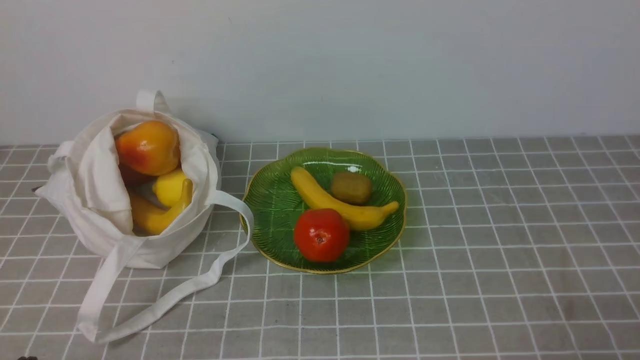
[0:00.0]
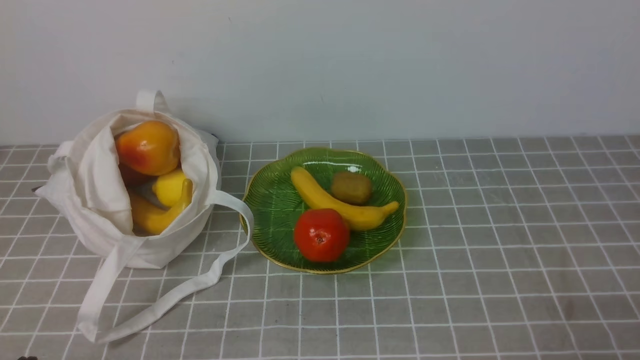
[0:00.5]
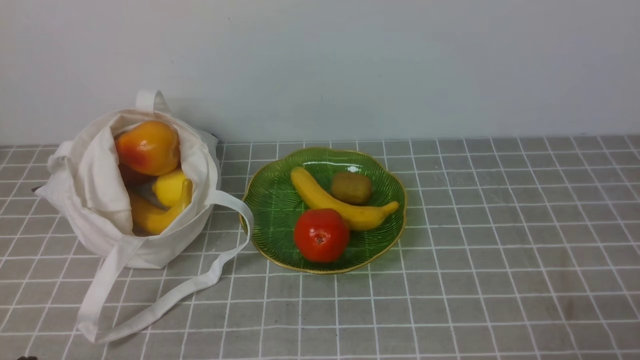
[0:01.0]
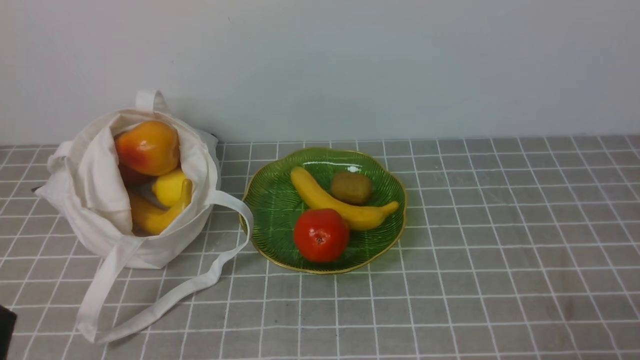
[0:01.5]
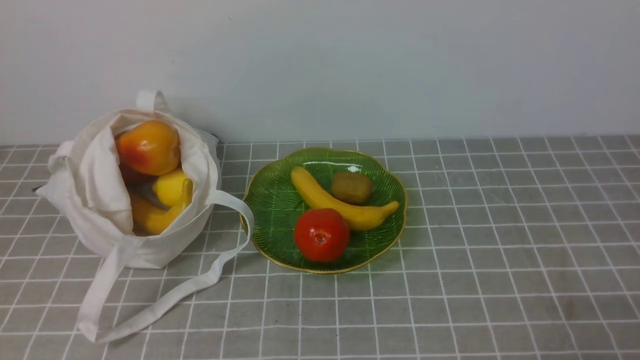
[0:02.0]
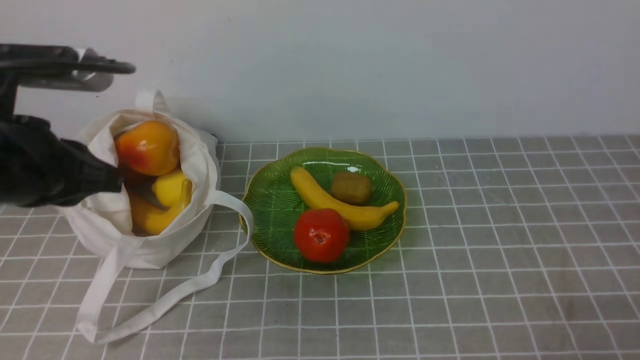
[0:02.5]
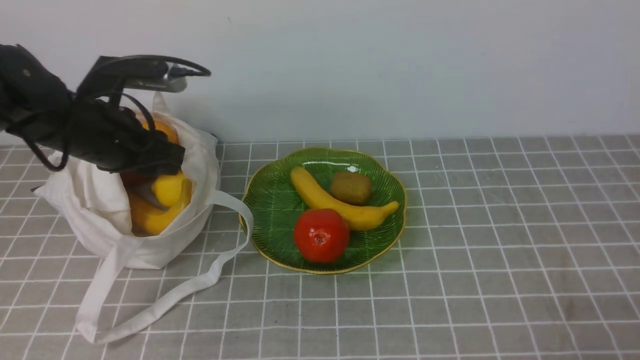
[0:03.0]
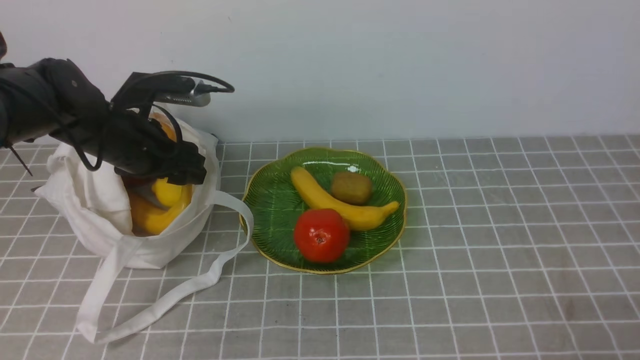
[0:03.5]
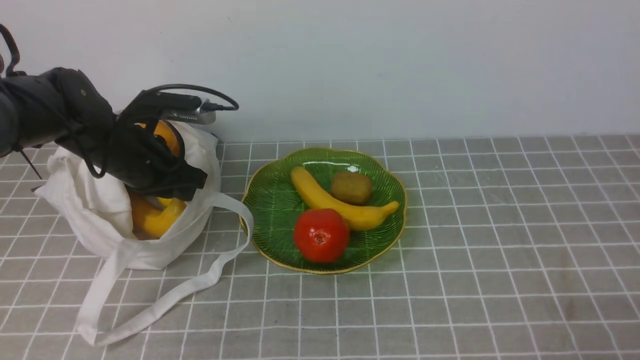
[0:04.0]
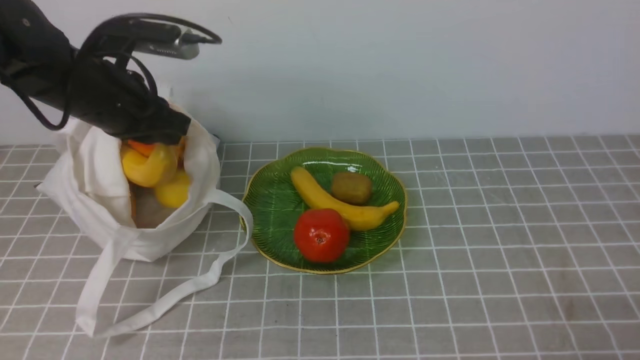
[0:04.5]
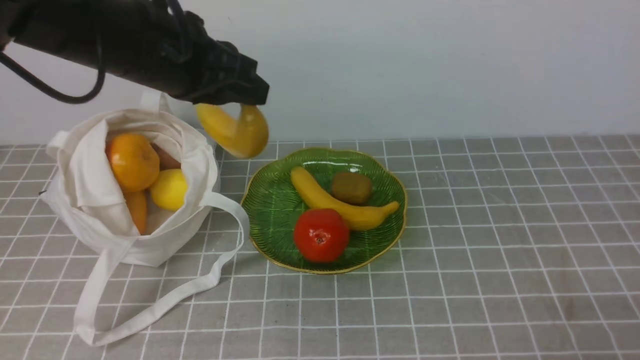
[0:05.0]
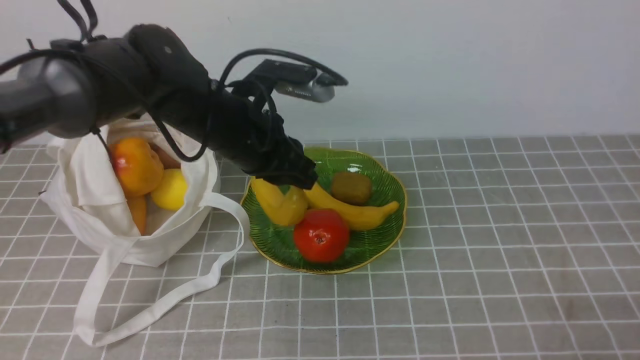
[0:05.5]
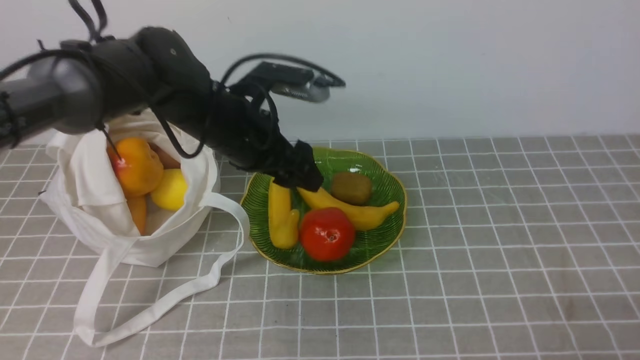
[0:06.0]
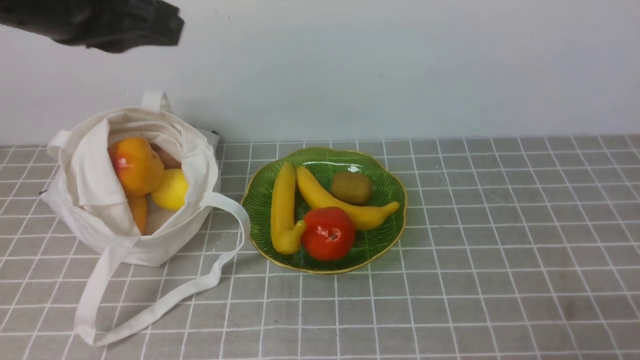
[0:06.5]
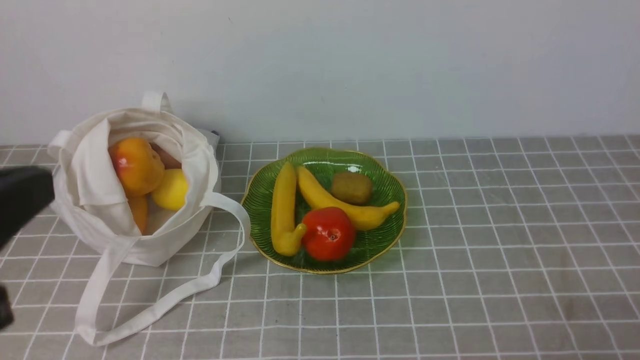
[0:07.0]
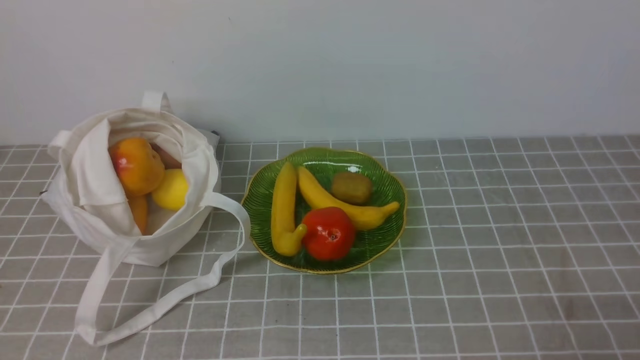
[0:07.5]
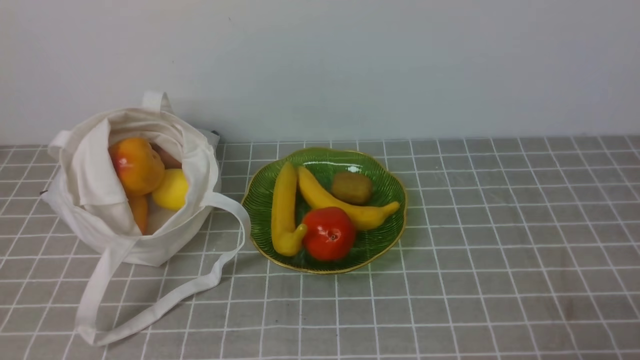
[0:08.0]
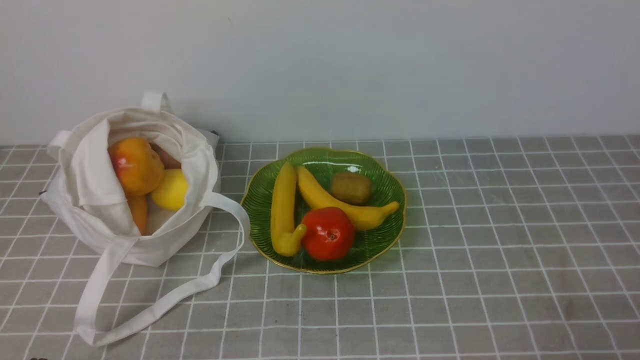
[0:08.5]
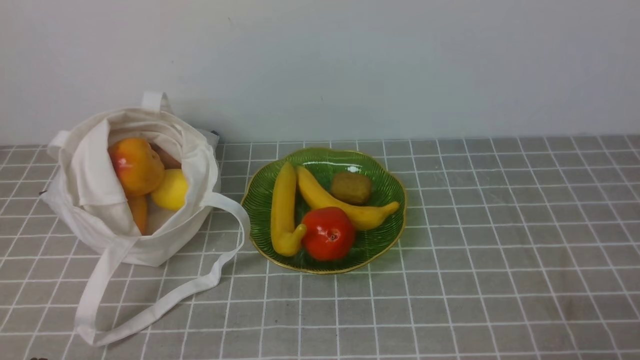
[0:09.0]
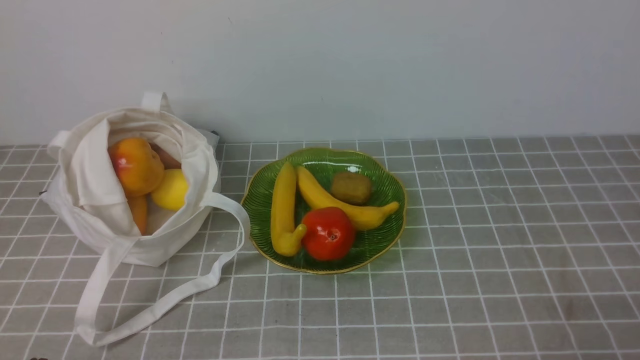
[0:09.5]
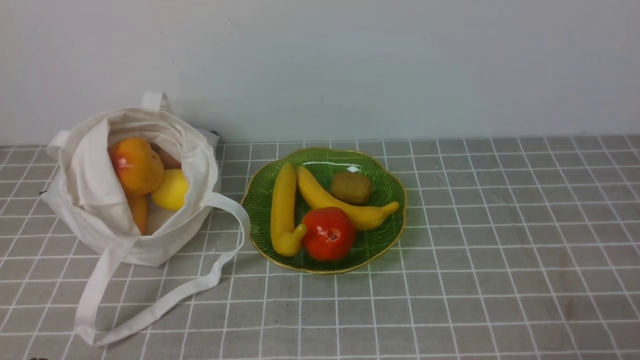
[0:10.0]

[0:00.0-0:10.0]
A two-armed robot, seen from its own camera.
Step, 0:00.0 to 0:04.0: use the left arm to grab a banana from the bag.
Step, 0:04.5 to 0:05.5: use the left arm to put the banana into the empty plate on the right.
0:02.0 to 0:04.0: The left gripper heads forward, covering approximately 35 cm, and opens.
0:04.0 to 0:06.0: The left gripper travels to the right by about 10 cm, moves about 15 cm upward and comes back, and opens its fingers.
0:06.0 to 0:08.0: The left gripper heads backward and to the left, covering about 40 cm, and closes its fingers.

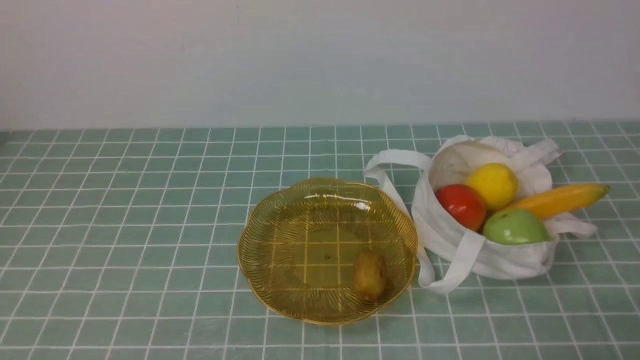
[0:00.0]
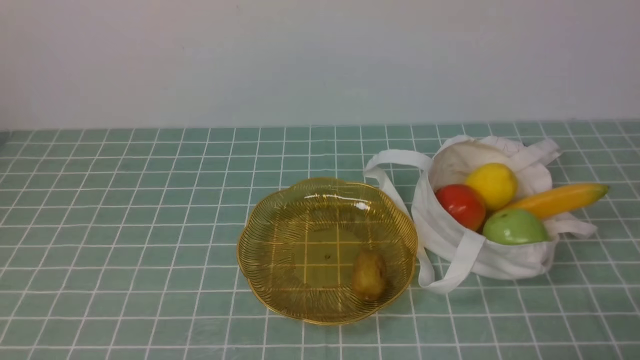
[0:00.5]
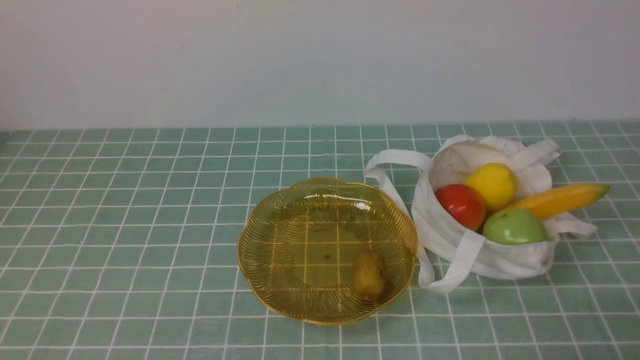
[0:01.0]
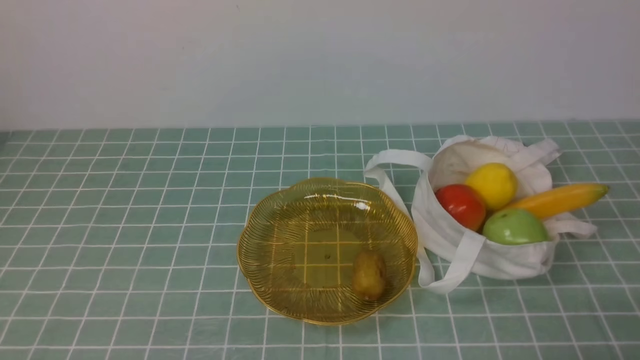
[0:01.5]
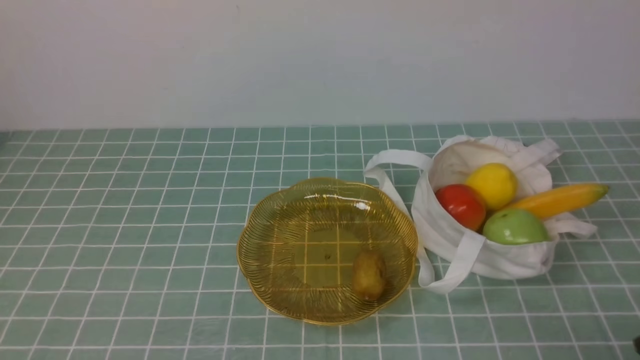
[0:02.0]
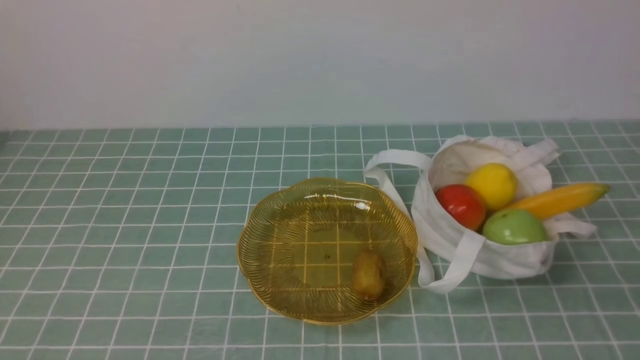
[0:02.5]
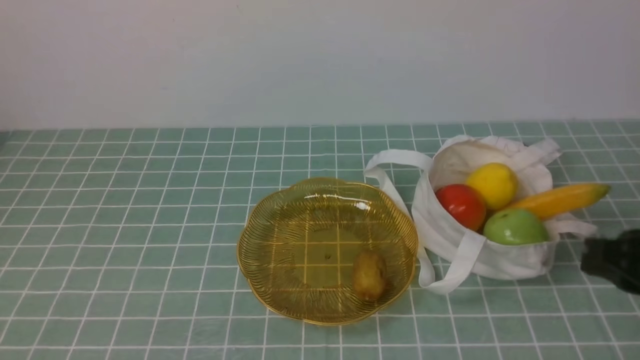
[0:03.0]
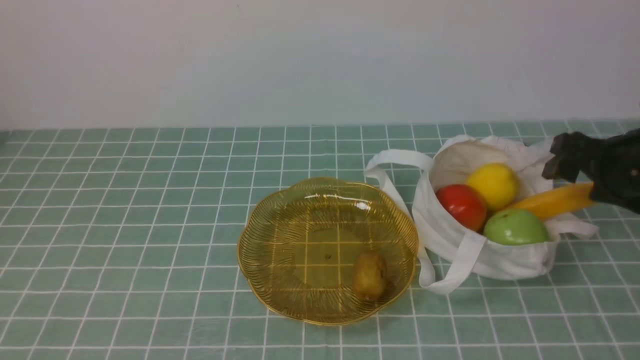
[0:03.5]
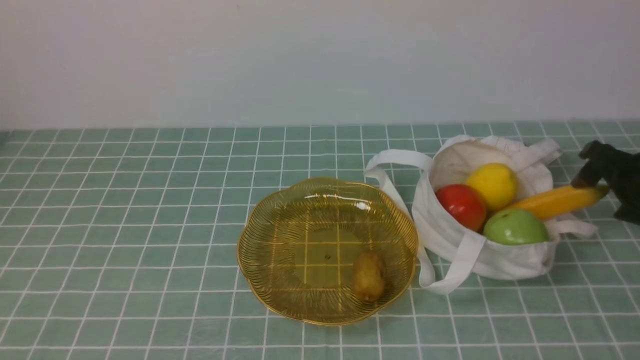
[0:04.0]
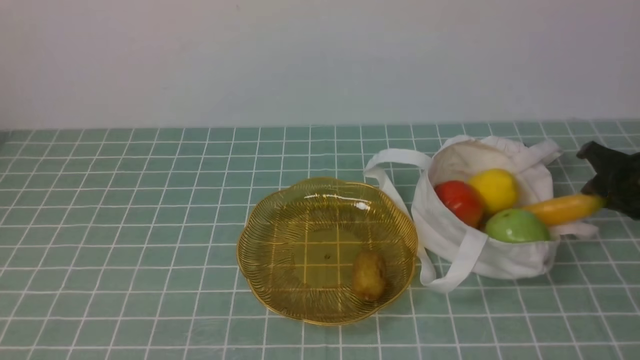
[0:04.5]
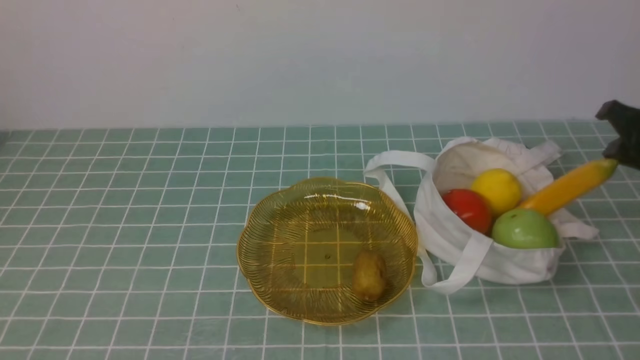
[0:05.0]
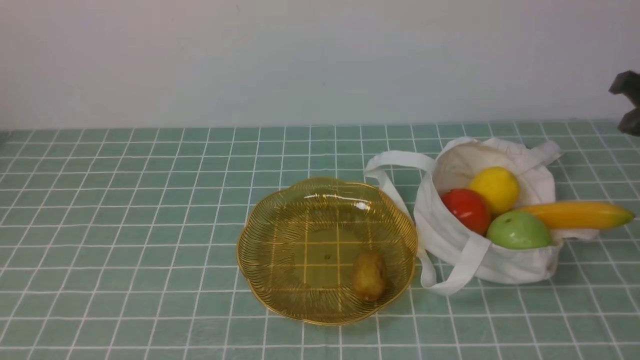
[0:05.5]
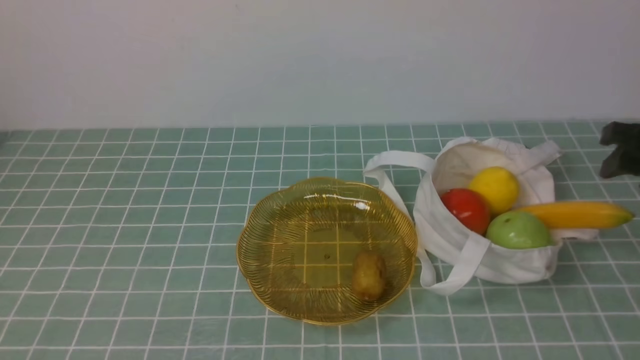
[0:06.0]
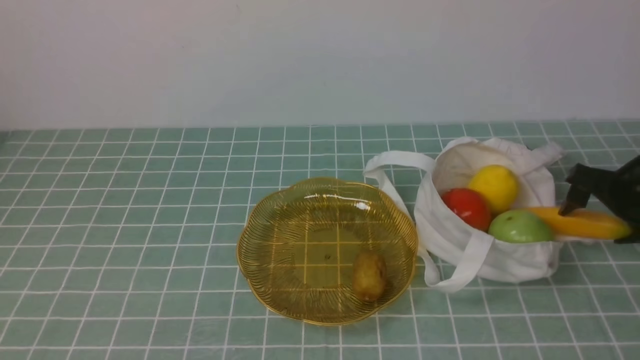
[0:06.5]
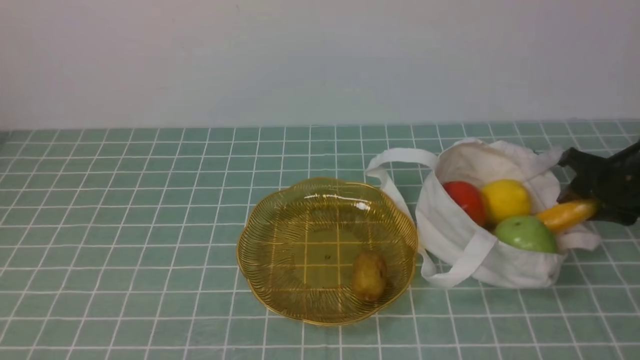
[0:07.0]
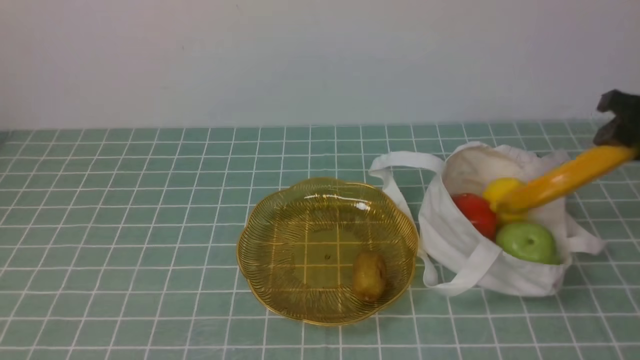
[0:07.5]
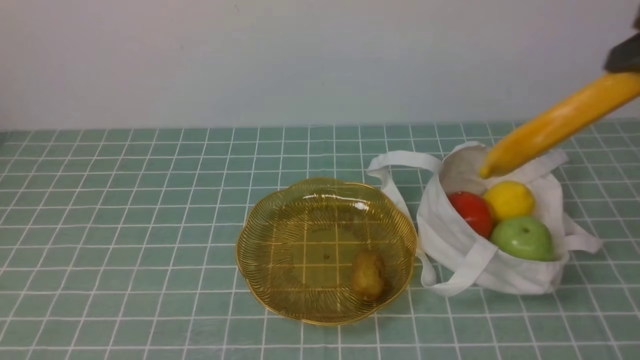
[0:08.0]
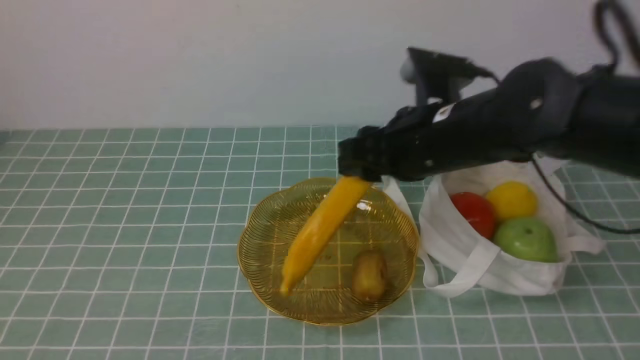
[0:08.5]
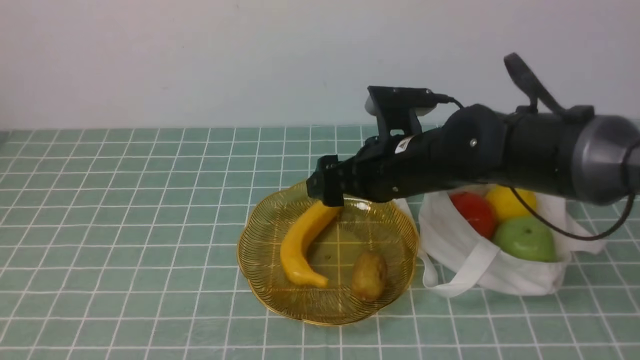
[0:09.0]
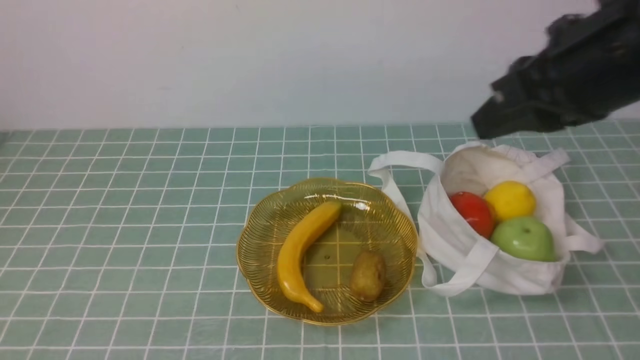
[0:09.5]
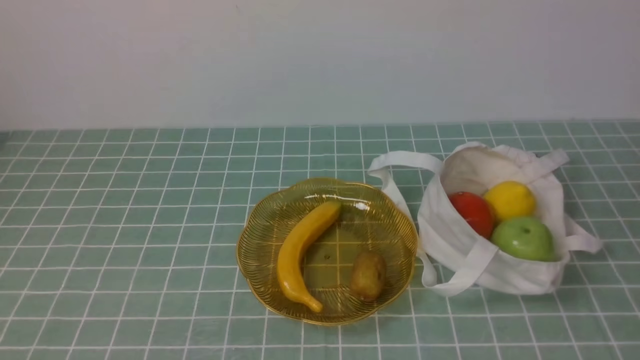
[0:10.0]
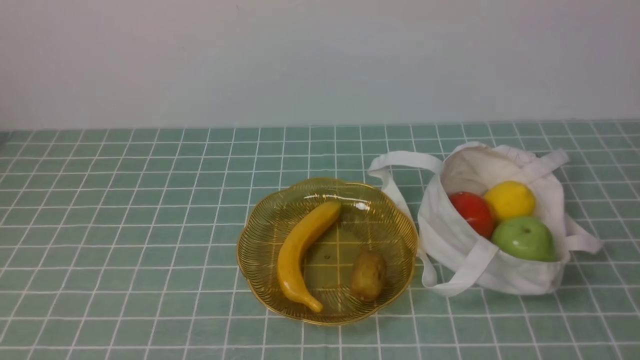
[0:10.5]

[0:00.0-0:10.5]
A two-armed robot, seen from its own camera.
Step, 0:00.0 to 0:07.0: use the right arm to grab a banana from the bag.
Step, 0:08.0 to 0:09.0: use the right arm to put the banana into the empty plate on the right.
0:02.0 to 0:04.0: The right gripper shifts roughly 30 cm forward, and opens up.
0:04.0 to 0:06.5: The right gripper travels upward and back again, approximately 10 cm each way, and closes, then opens again.
0:06.5 to 0:08.5: The right gripper travels to the left by some 25 cm, and closes.
0:08.5 to 0:10.5: The right gripper moves backward and to the right, roughly 30 cm, and closes up.
